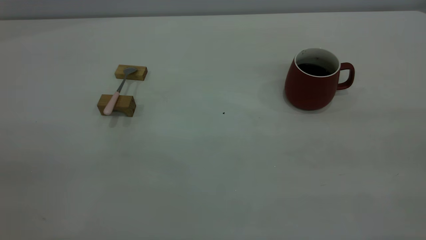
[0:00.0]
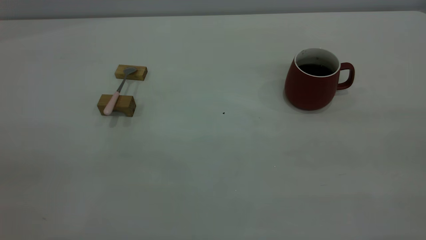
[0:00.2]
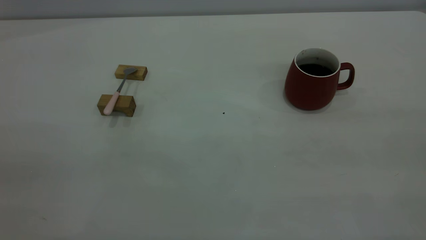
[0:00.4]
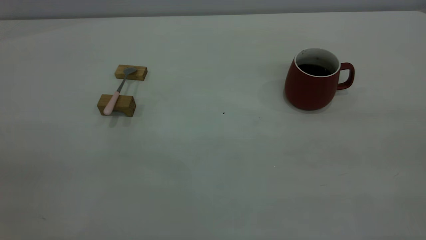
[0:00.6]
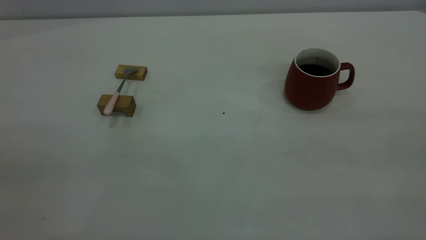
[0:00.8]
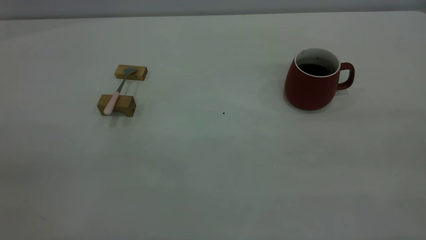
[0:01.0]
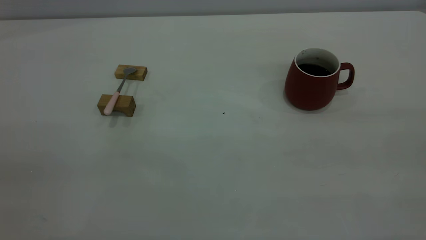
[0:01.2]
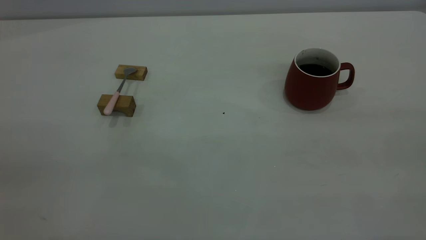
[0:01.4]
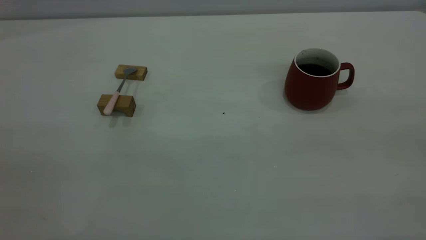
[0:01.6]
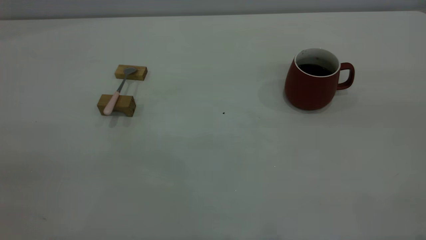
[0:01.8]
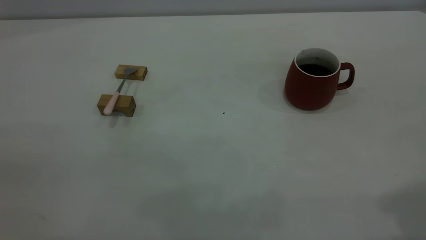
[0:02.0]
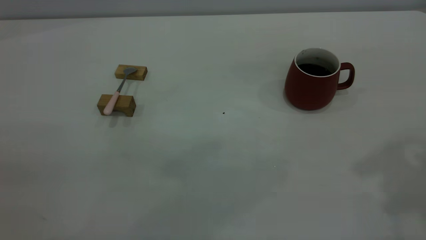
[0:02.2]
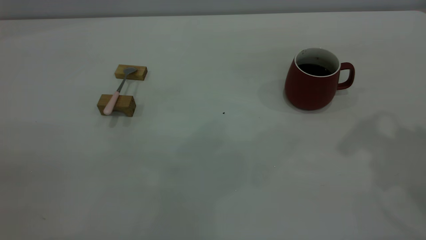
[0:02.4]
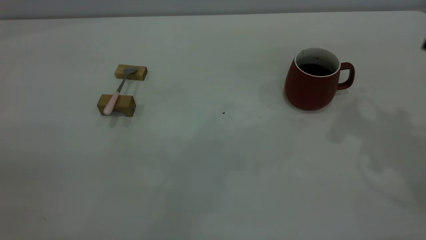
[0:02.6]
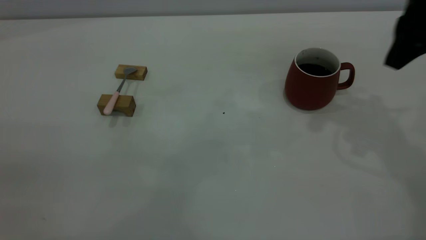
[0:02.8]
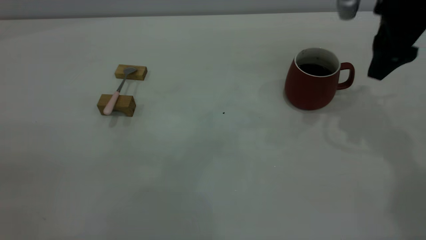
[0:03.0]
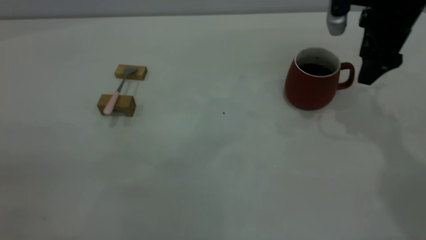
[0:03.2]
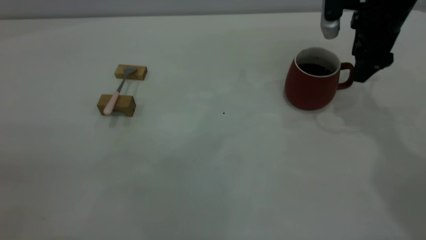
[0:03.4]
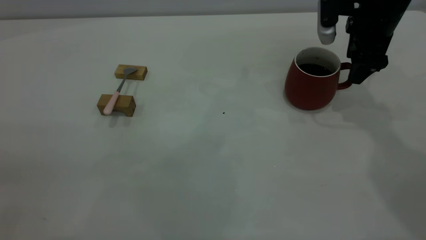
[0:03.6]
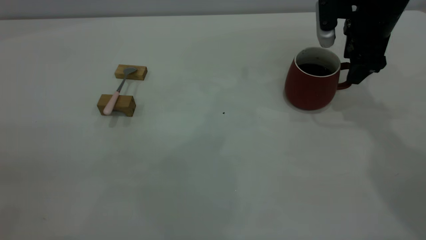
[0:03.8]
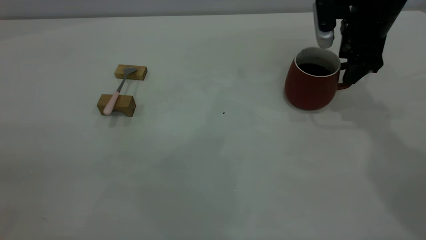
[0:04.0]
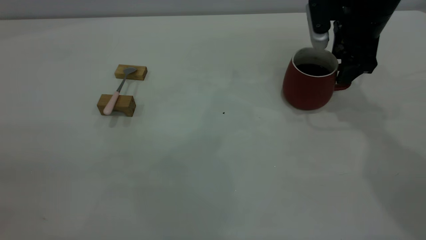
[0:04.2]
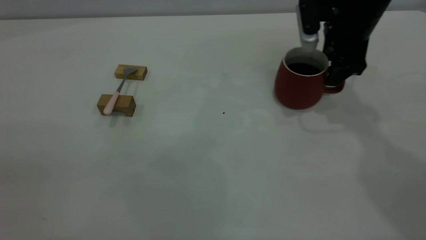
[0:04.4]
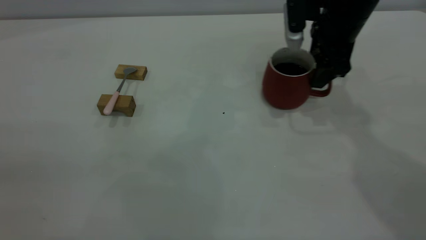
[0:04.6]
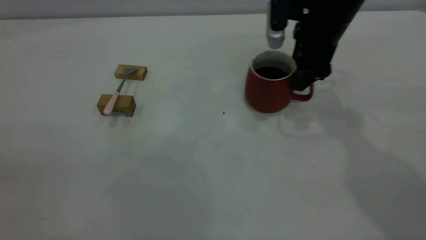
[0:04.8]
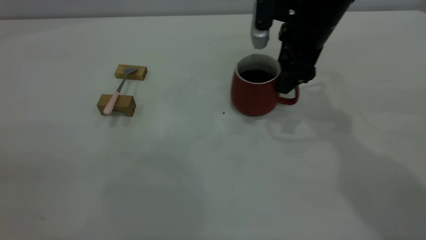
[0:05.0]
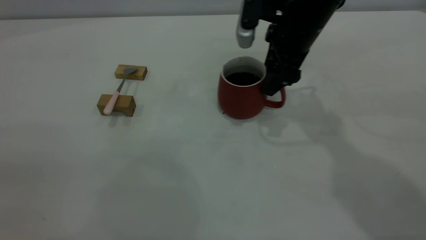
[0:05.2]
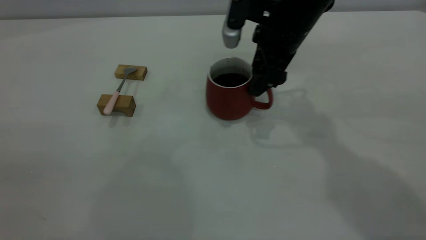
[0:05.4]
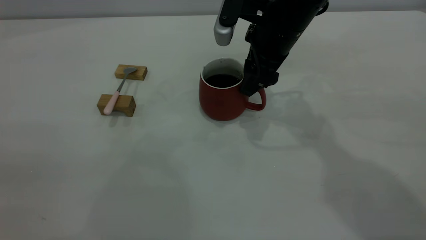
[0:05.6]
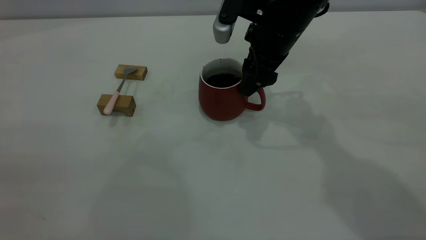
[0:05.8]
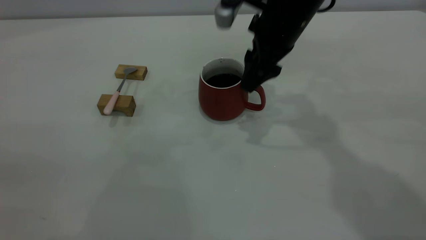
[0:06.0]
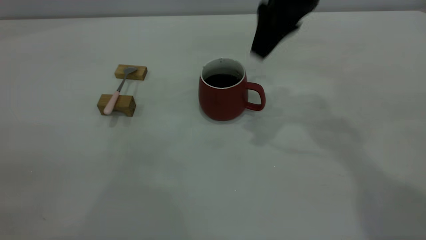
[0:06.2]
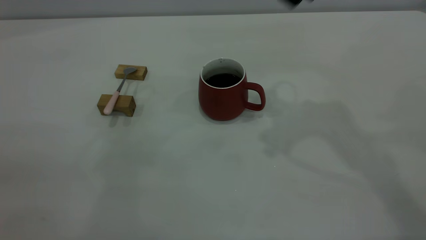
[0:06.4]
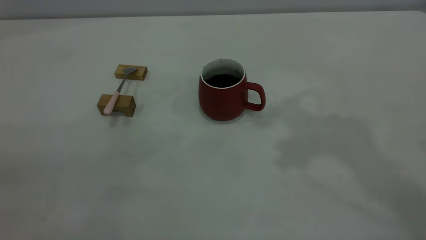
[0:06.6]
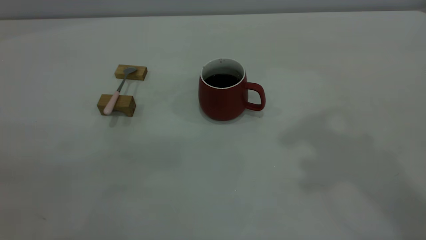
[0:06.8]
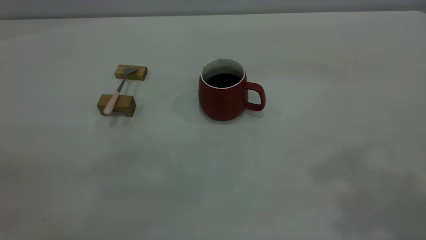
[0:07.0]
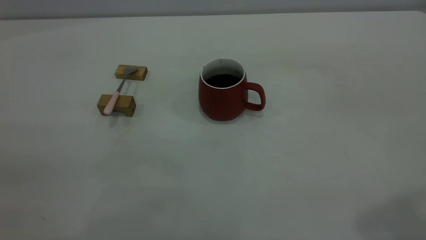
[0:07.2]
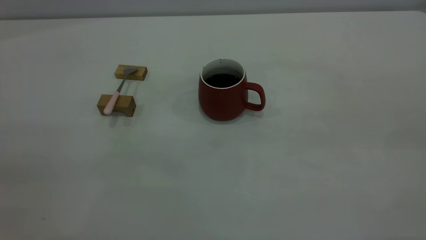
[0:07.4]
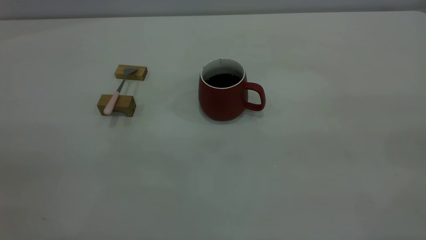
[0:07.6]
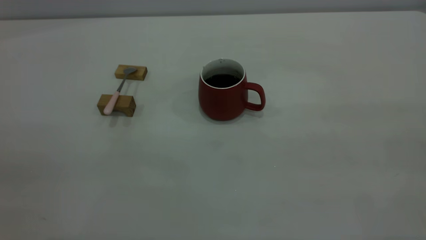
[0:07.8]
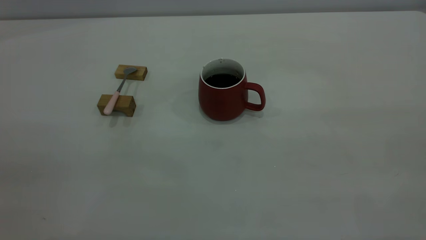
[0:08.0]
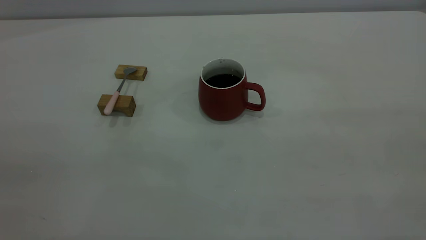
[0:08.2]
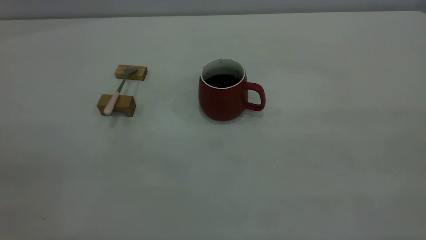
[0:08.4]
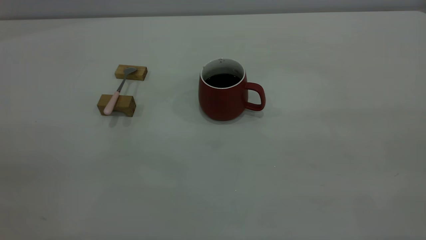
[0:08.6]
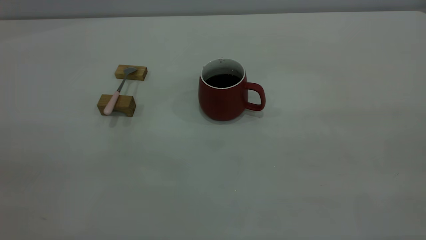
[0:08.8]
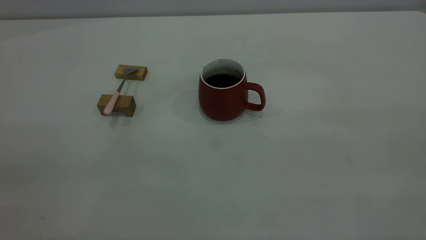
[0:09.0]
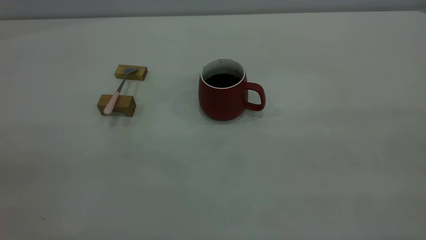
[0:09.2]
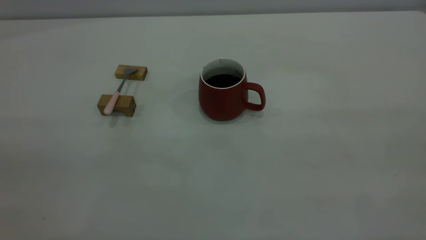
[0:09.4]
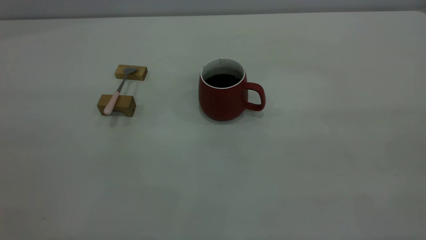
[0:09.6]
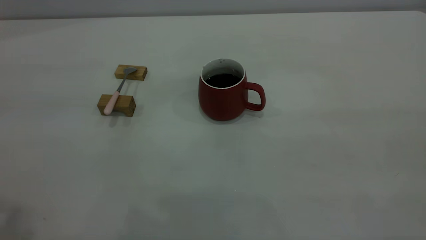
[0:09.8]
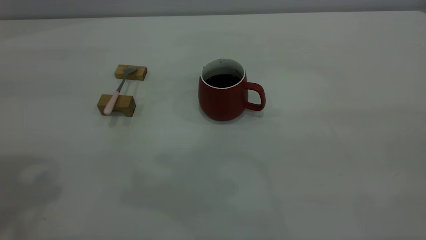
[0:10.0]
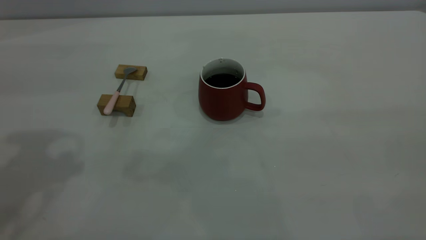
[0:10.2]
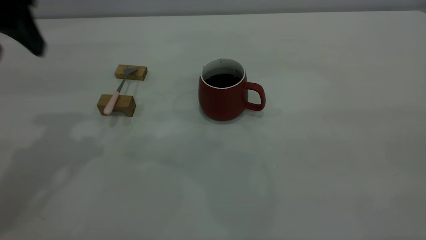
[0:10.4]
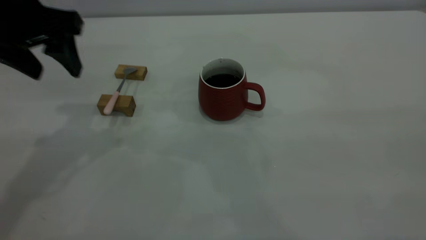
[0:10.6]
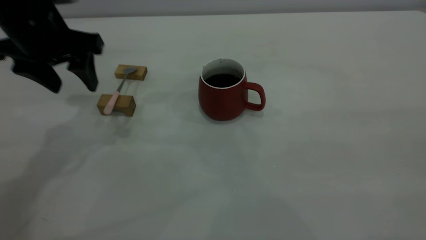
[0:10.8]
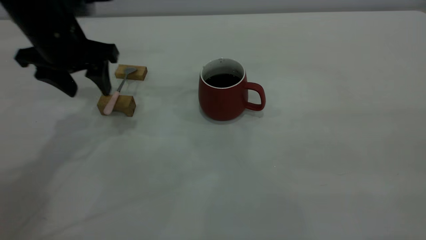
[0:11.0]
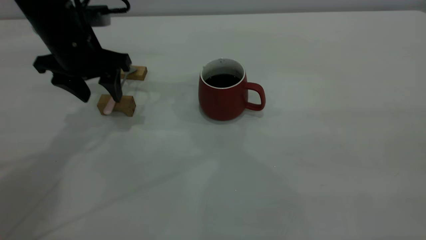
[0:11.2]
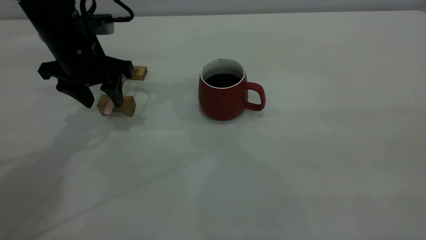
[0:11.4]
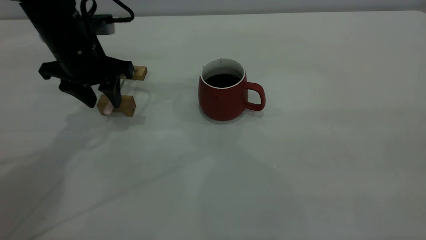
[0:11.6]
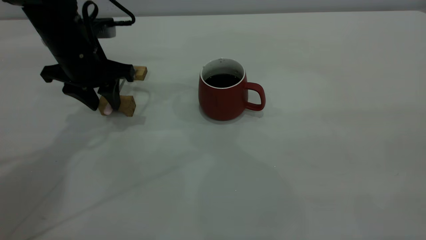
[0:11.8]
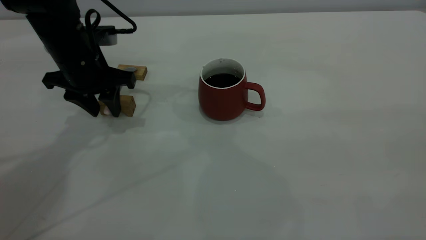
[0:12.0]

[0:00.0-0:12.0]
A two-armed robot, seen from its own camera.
Step, 0:00.0 to 0:06.0: Move the cup with coffee to the center of view.
0:01.6 to 0:03.0: The right gripper is displaced forward and downward by roughly 40 cm.
0:03.0 to 0:04.4: The right gripper moves downward, roughly 5 cm.
0:04.4 to 0:06.0: The right gripper travels to the left by about 10 cm.
0:06.0 to 0:07.6: The right gripper moves backward, to the right and upward, some 50 cm.
0:09.0 to 0:10.4: The left gripper shifts about 30 cm forward, and opens up.
0:10.4 to 0:12.0: The left gripper goes roughly 20 cm downward and forward, and closes up.

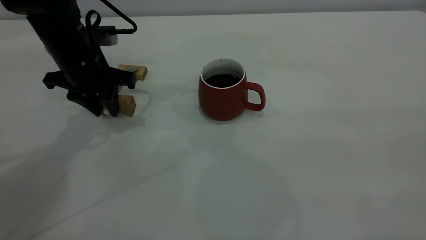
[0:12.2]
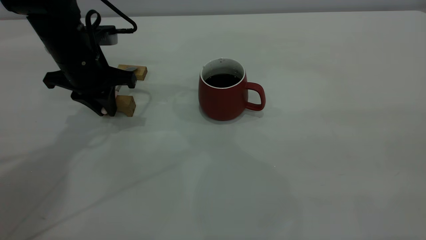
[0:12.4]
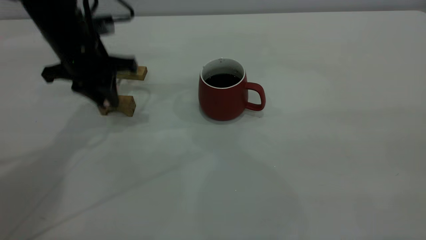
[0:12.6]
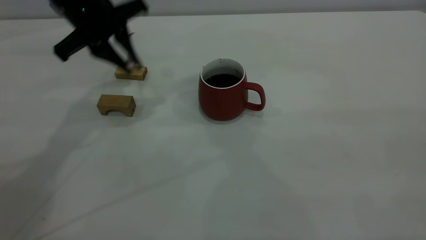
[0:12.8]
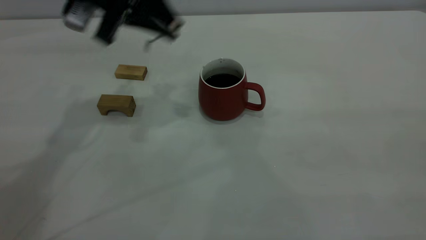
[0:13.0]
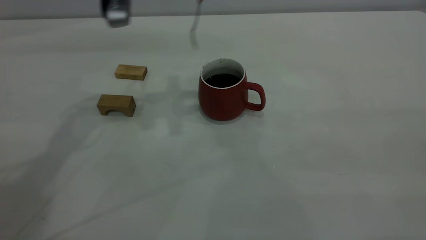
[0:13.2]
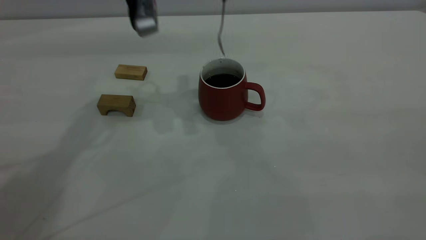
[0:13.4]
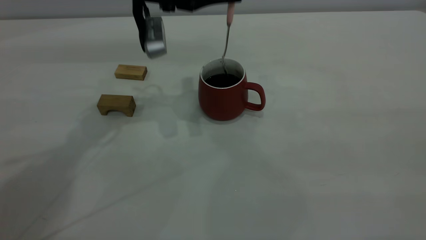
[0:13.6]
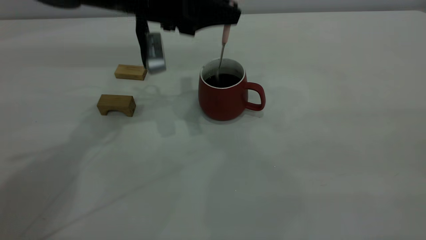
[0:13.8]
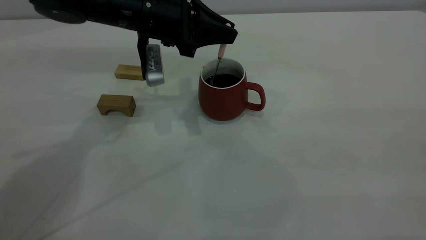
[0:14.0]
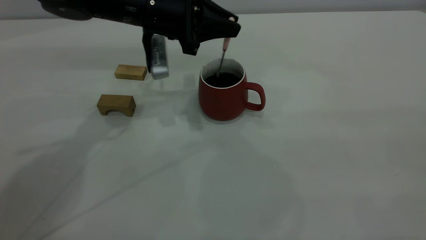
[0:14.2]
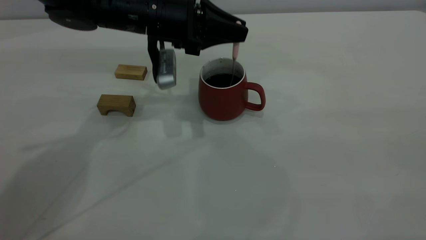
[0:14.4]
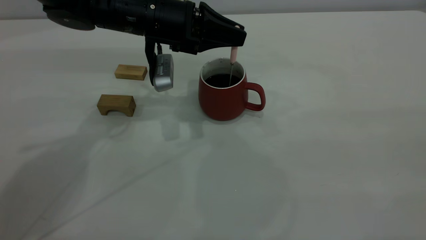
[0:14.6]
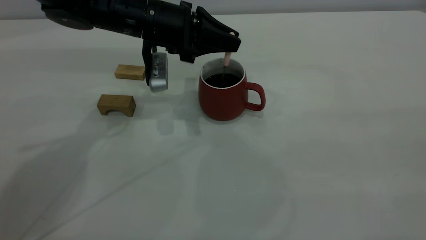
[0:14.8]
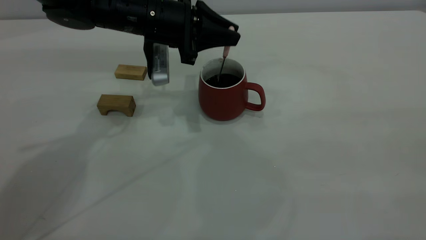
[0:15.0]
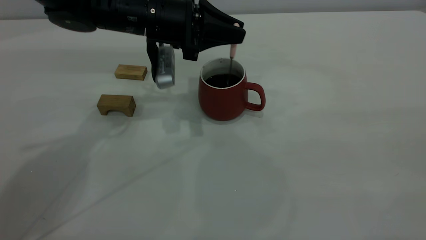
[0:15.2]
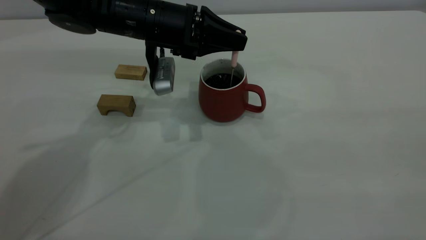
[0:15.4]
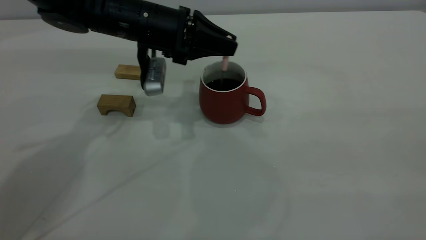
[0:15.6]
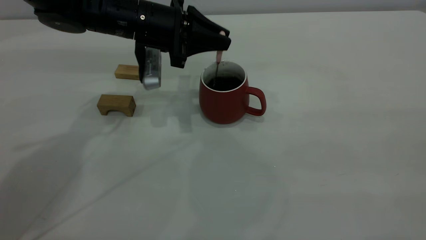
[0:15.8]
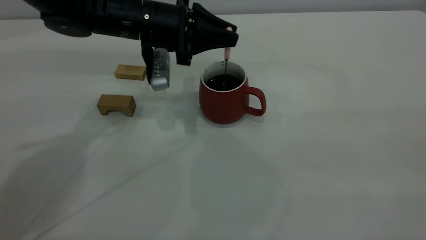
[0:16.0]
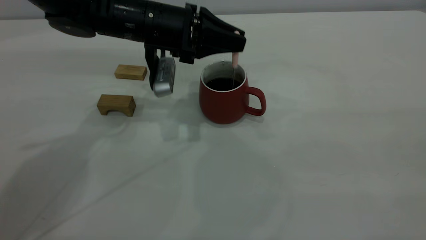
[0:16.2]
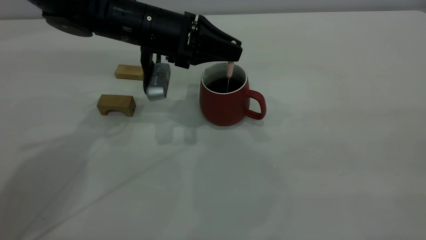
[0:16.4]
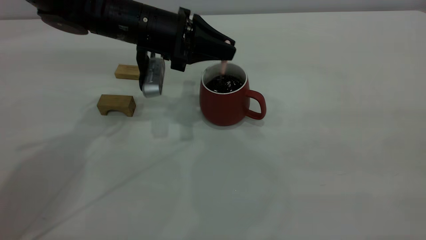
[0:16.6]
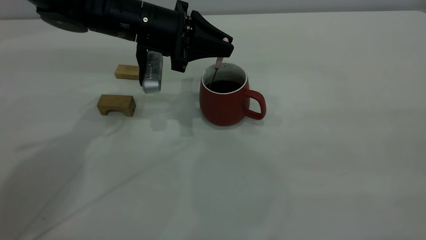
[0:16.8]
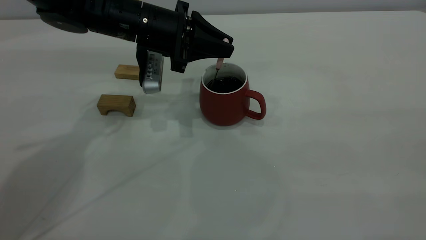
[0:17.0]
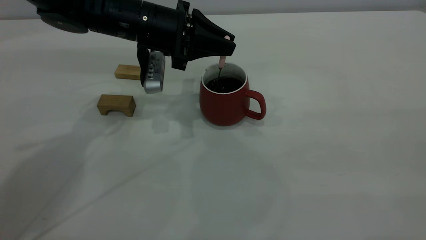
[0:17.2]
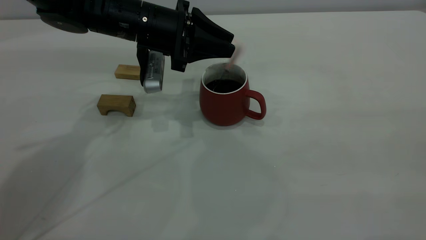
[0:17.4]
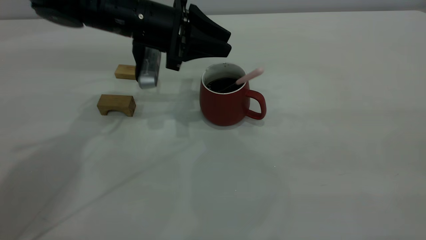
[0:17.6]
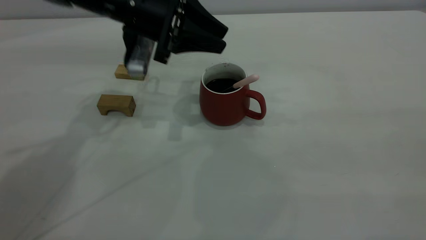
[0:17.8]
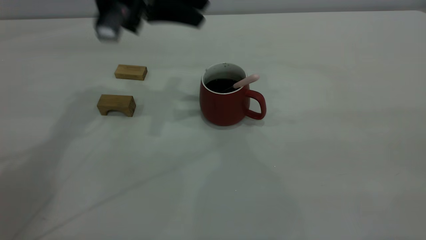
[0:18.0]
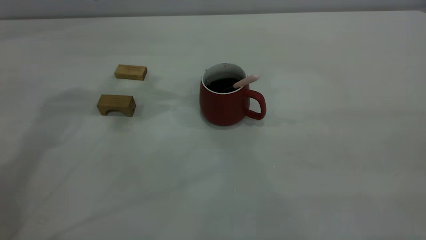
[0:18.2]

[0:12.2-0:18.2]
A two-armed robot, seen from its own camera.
Step, 0:12.8 to 0:17.8: Stir the coffee in the cup.
0:12.2 to 0:13.8: The left gripper shifts about 10 cm to the right and upward.
0:13.8 to 0:16.6: The grippers make only small movements.
0:16.6 to 0:18.2: The left gripper is displaced upward and to the left by approximately 20 cm, and opens up.
